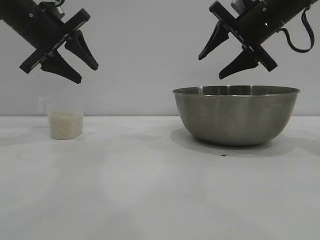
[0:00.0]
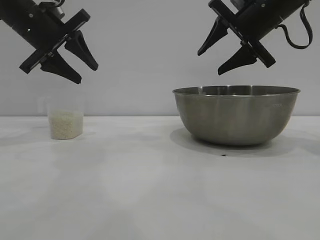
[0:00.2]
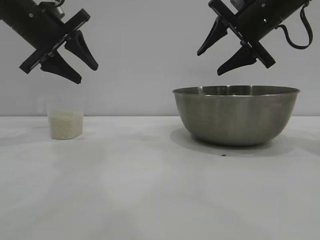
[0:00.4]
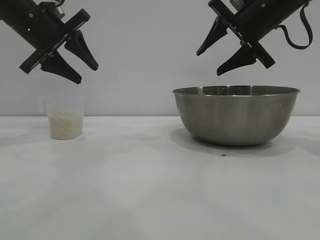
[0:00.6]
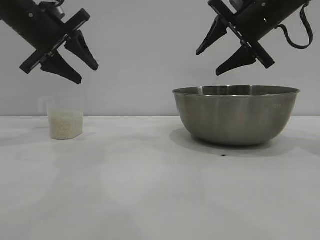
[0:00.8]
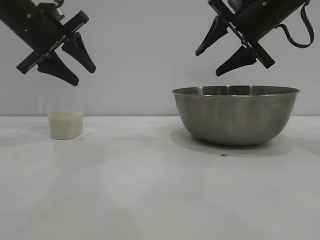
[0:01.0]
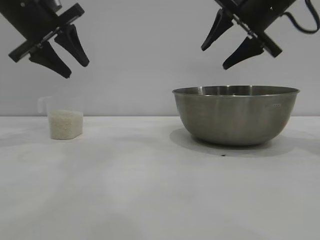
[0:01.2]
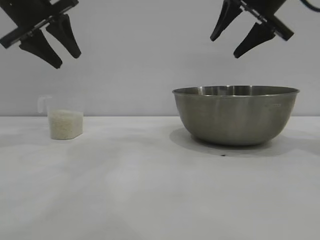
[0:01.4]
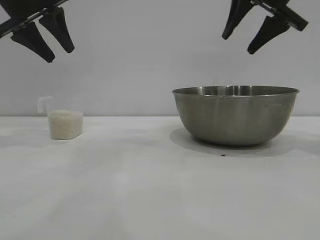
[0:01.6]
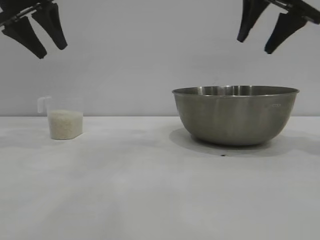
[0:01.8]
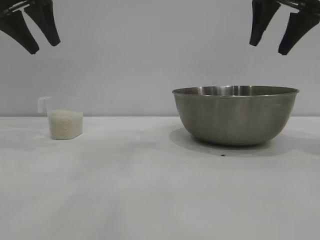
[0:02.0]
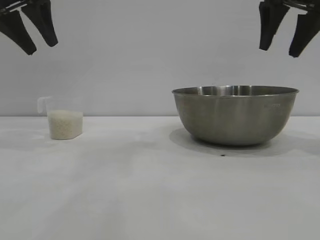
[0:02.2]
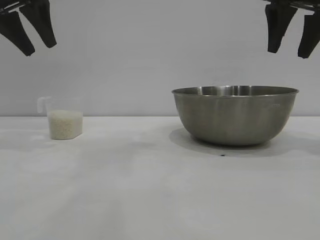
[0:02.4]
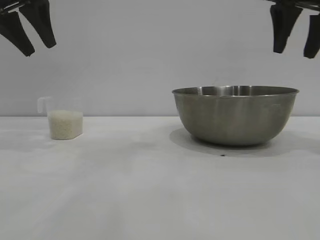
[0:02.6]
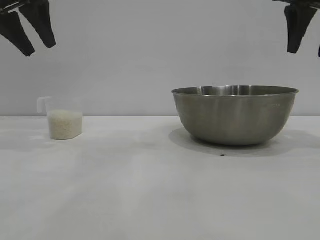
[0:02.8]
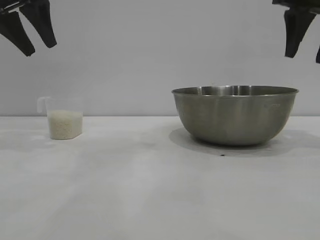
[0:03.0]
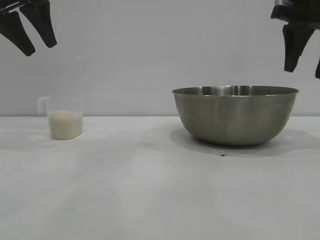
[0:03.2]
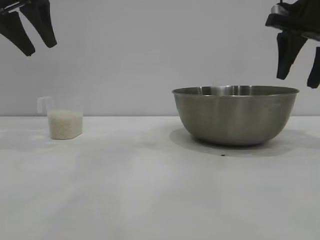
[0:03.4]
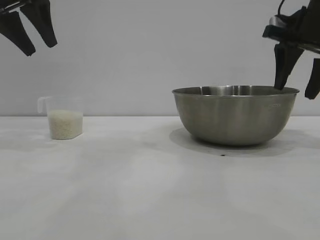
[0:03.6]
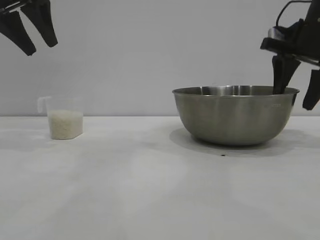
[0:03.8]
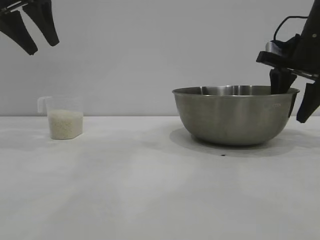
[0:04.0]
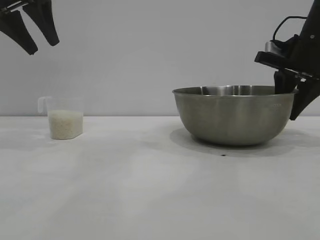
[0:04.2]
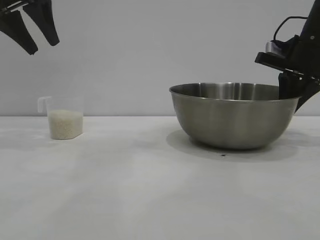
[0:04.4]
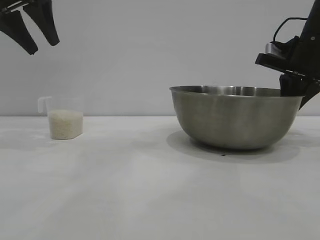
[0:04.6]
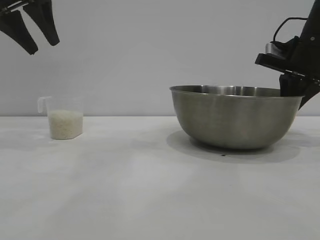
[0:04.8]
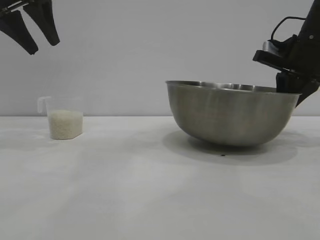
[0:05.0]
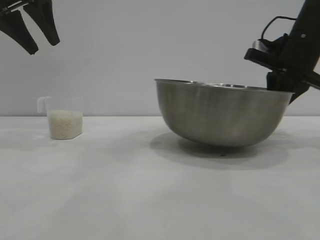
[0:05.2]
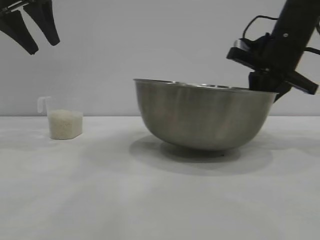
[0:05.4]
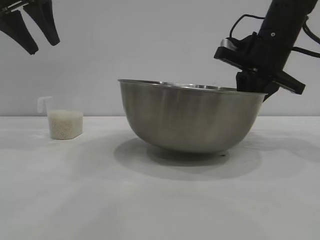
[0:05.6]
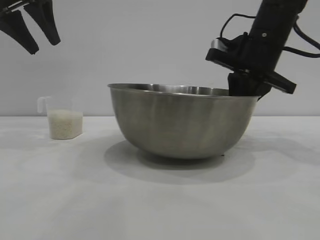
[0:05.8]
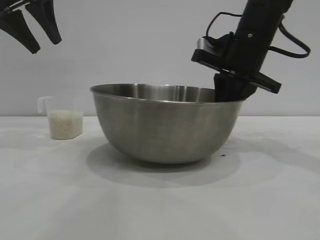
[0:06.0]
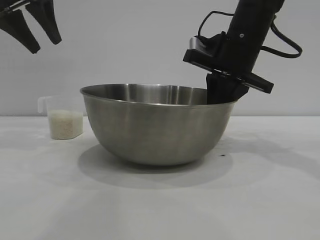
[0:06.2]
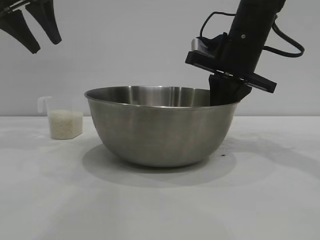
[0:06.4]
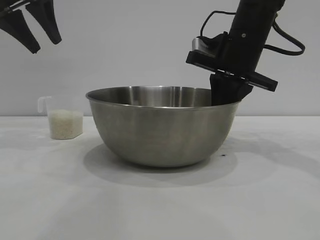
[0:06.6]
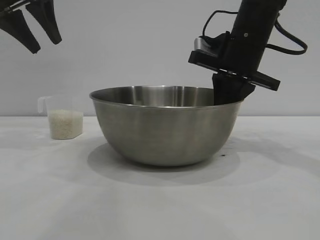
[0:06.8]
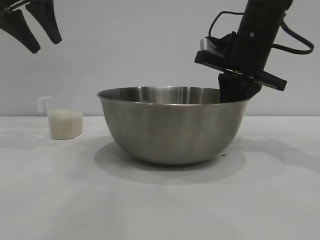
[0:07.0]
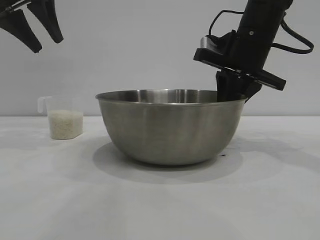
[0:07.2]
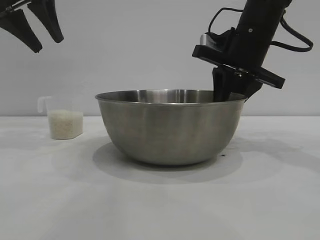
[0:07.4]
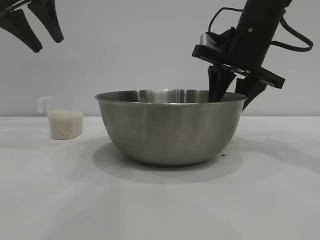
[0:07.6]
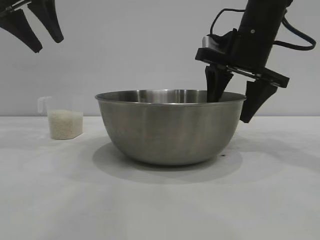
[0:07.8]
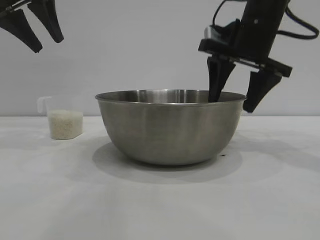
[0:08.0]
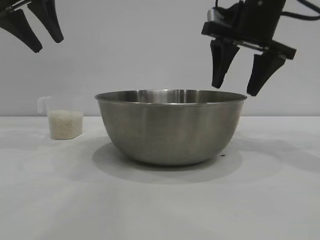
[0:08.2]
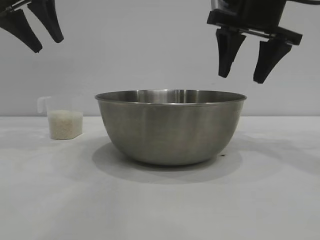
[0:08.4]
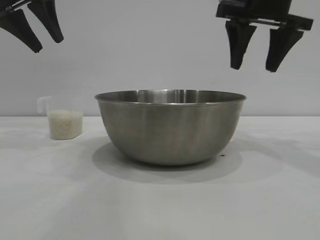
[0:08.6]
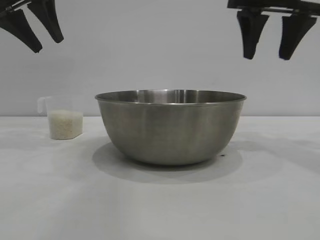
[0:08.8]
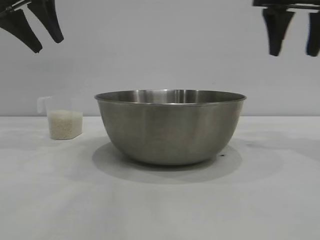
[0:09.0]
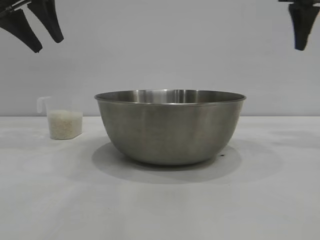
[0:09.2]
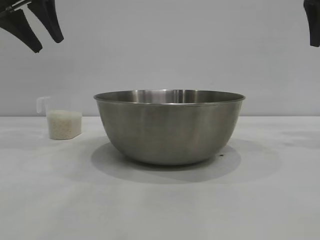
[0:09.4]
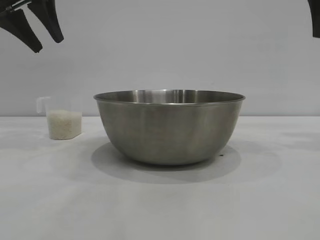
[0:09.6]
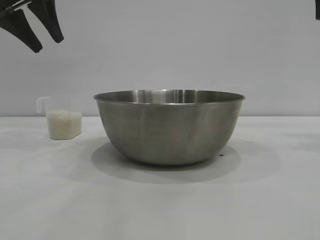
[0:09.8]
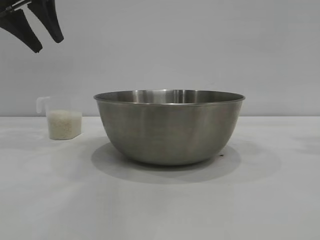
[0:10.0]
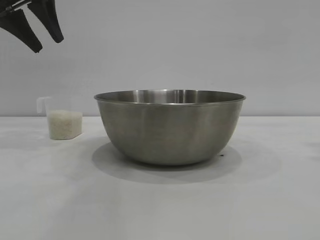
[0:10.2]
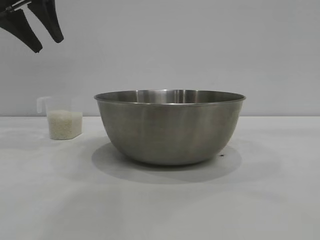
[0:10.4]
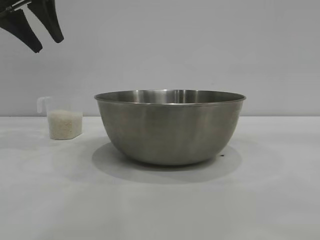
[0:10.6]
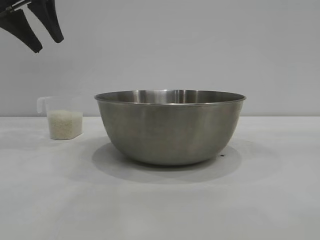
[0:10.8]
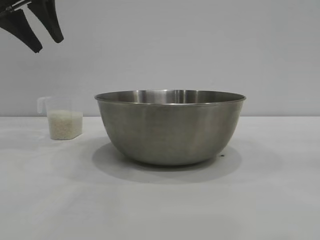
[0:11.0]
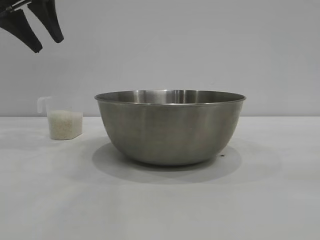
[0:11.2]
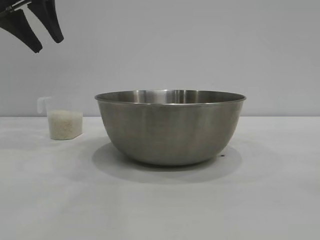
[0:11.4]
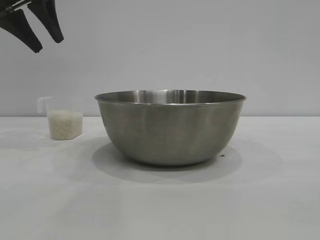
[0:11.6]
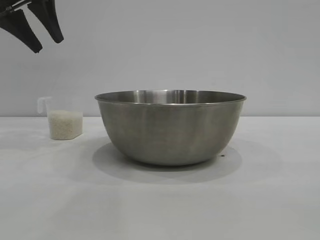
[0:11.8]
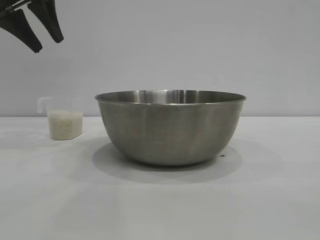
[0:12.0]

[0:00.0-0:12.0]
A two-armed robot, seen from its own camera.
Task of the whole recording: the right gripper grasp the rice container and place it in the center of the table, the left gripper grasp the rice scoop and pour the rice into the rice container.
Step, 0:00.0 to 0:04.8: Pick up the bowl with the right gripper.
Step, 0:05.2 to 0:08.8: Place the bowl in the center of view with the right gripper.

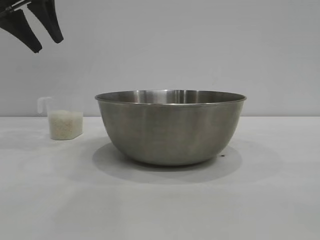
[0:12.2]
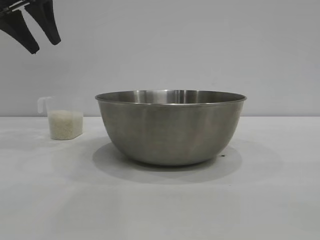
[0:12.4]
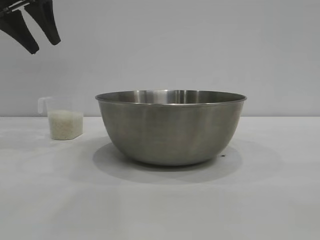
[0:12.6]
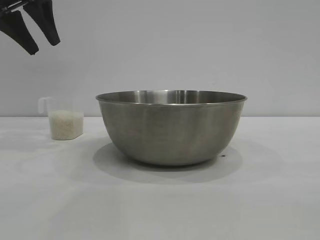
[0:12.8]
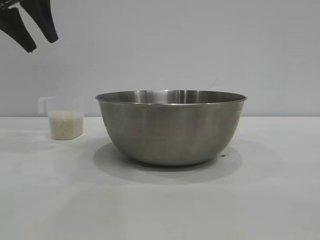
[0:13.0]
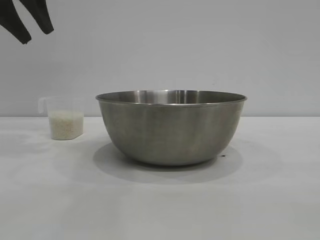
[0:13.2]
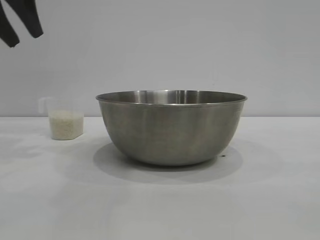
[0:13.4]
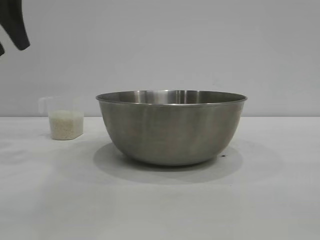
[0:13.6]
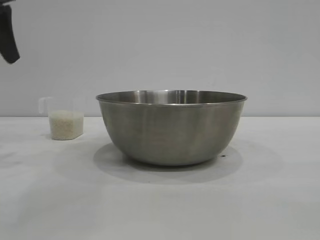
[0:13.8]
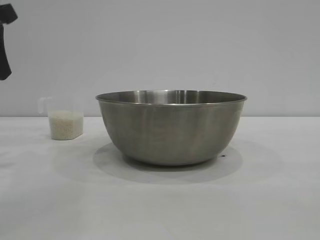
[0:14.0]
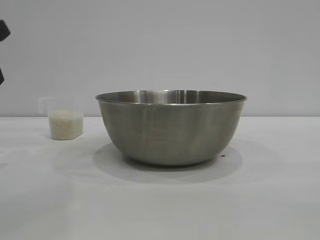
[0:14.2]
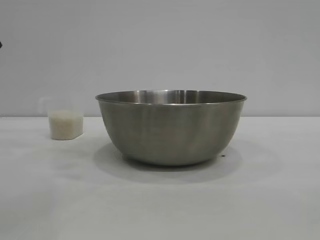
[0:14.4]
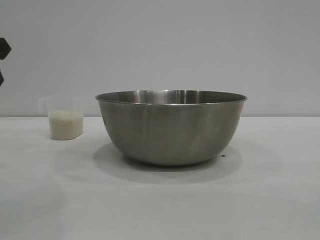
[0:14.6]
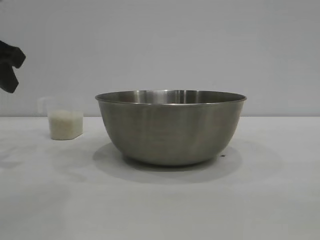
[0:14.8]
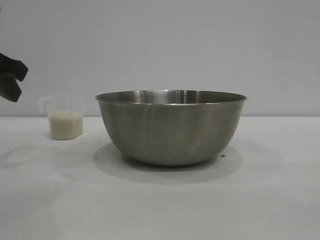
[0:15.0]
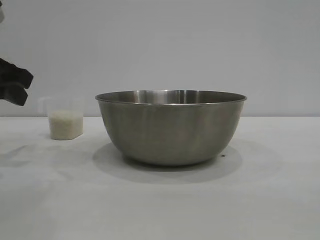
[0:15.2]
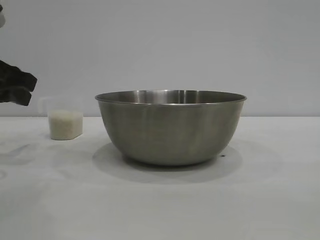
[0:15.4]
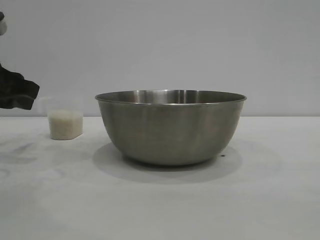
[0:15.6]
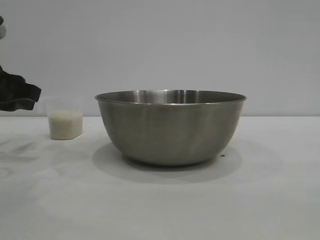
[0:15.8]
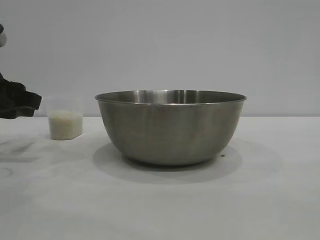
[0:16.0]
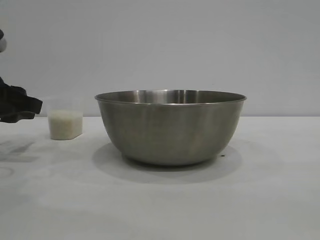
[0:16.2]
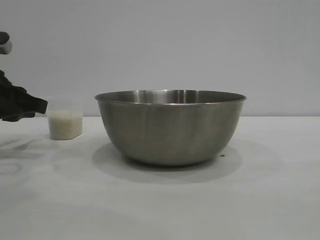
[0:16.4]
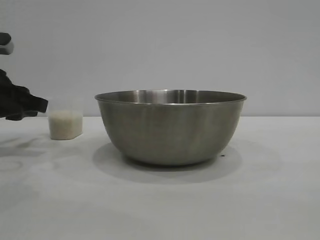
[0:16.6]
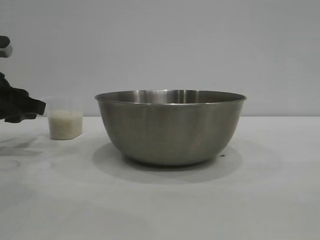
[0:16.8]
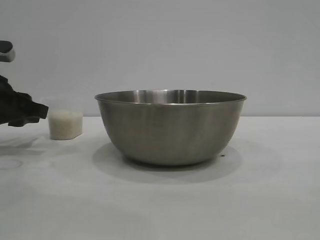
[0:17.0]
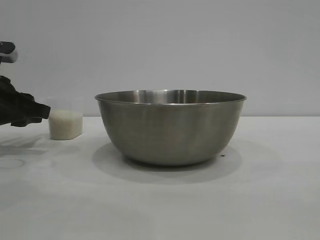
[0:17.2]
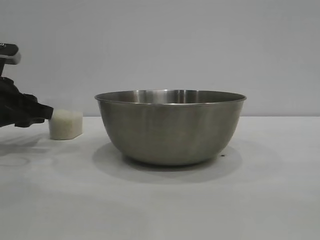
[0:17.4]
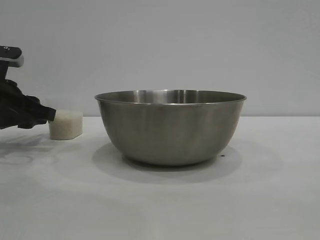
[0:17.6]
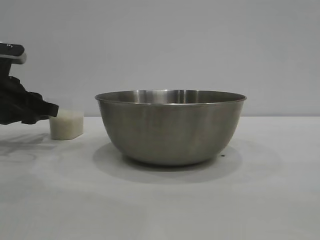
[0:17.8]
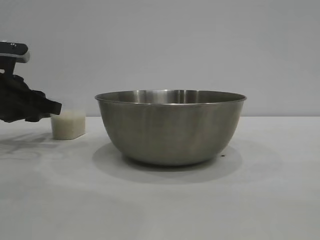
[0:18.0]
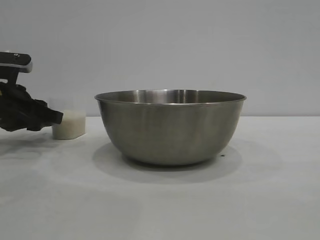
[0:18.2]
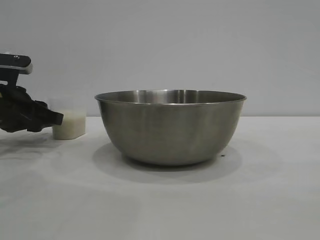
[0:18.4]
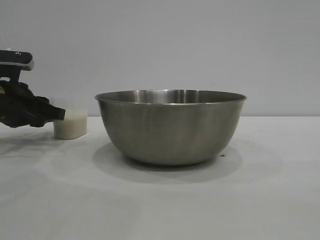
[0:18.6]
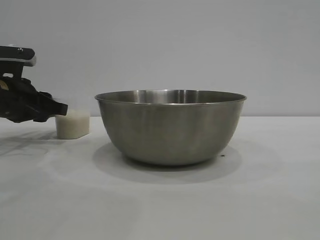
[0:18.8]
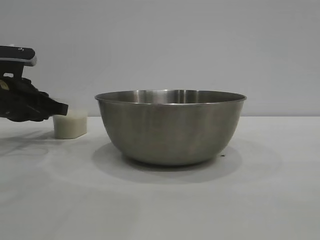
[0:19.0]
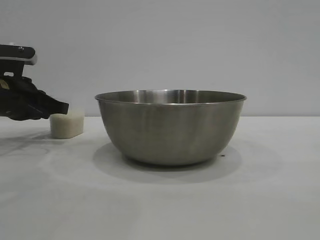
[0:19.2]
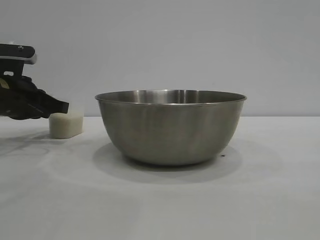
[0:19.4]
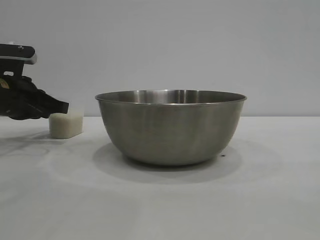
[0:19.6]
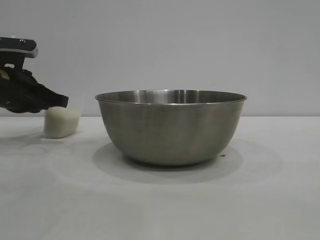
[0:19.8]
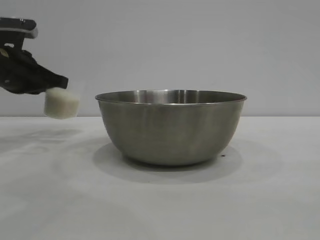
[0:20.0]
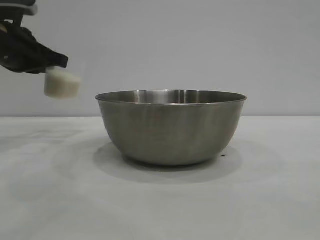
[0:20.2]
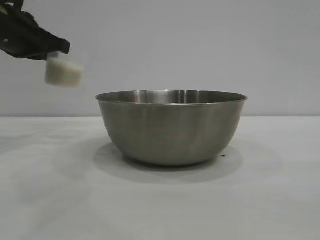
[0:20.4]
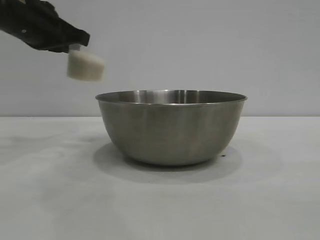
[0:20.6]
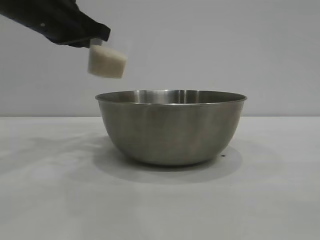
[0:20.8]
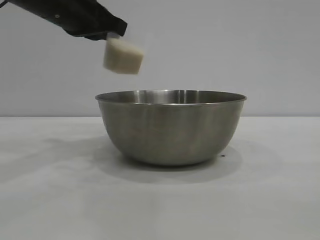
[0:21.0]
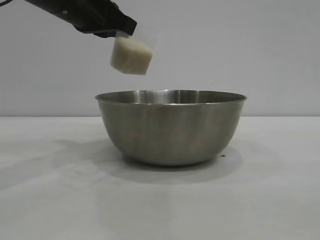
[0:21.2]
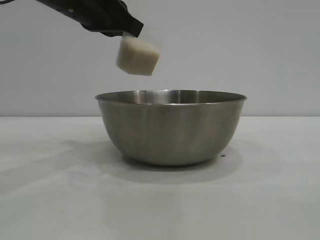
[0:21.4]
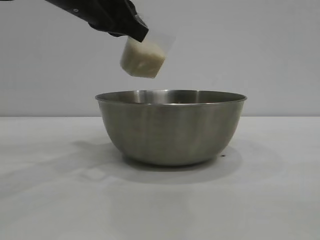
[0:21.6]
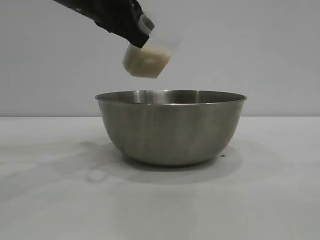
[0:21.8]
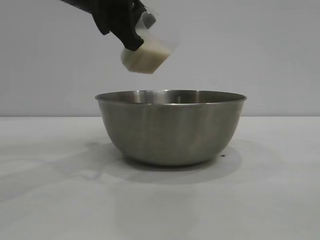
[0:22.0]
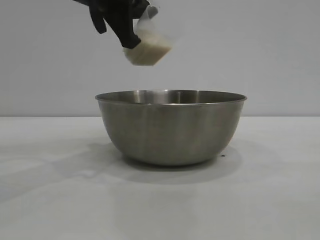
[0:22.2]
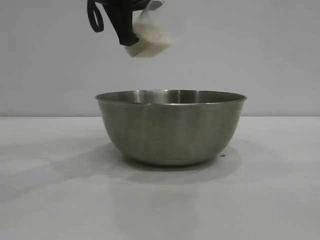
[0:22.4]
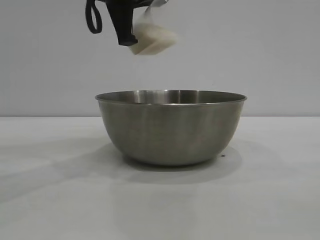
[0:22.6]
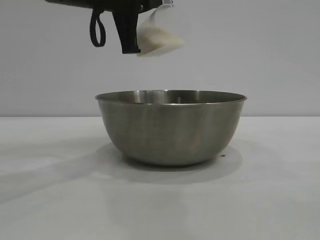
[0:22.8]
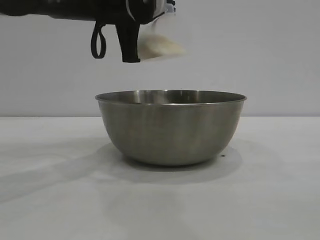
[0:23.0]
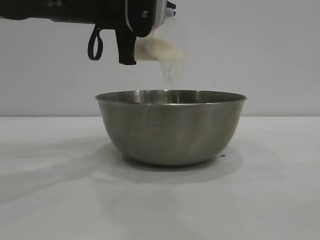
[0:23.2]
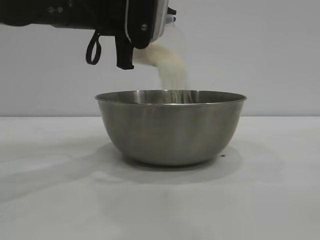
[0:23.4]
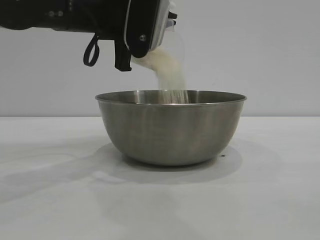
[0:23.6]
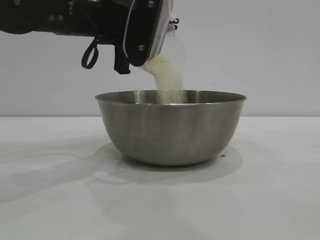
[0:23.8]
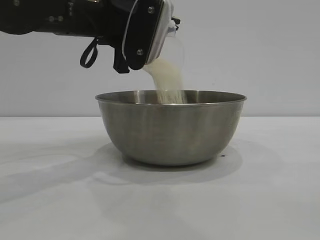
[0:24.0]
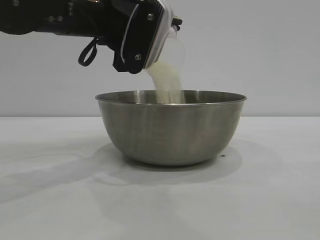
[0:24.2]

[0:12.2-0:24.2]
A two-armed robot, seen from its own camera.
Task of the whole recording: the right gripper grasp the rice container and place it in the center of the table, the left gripper grasp the rice scoop and pour the rice into the rice container.
Step, 0:12.2 to 0:20.2: Pick up the cup with rice in it with the left gripper.
